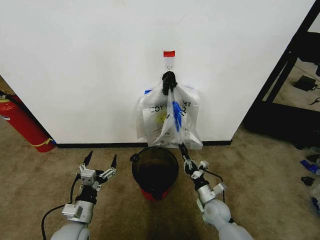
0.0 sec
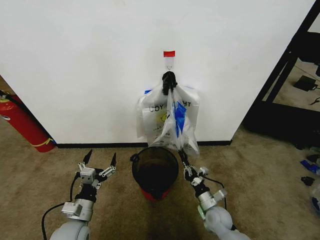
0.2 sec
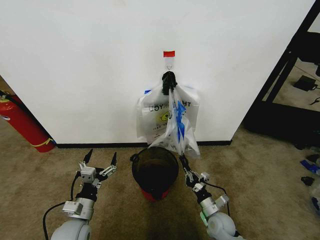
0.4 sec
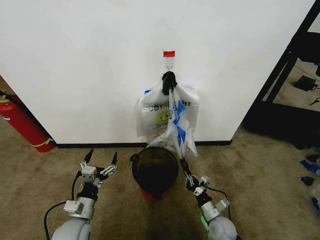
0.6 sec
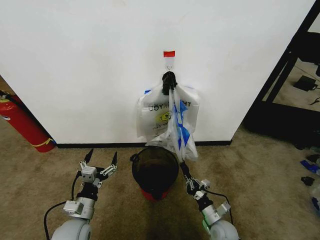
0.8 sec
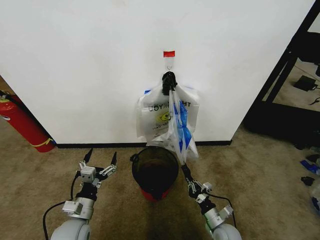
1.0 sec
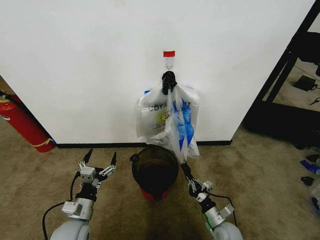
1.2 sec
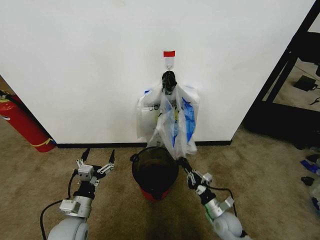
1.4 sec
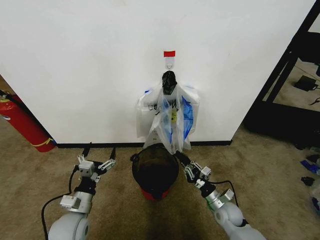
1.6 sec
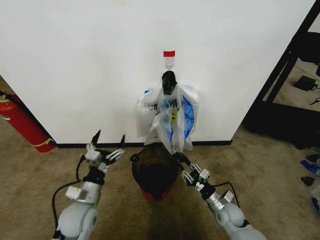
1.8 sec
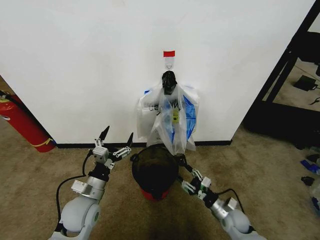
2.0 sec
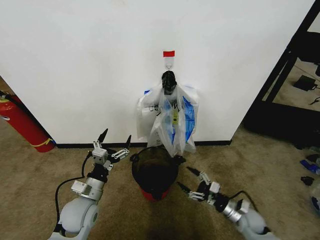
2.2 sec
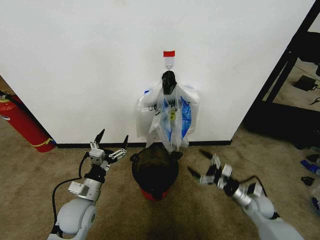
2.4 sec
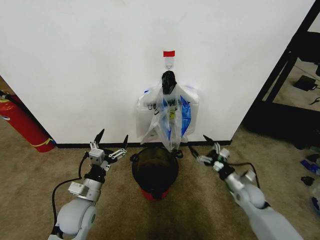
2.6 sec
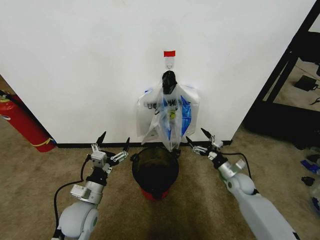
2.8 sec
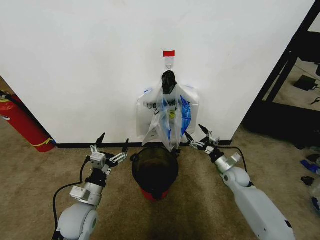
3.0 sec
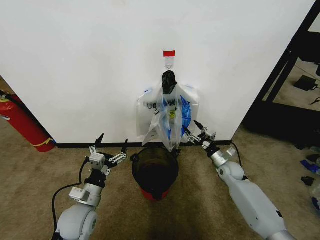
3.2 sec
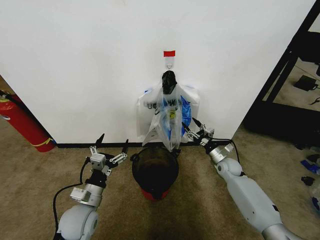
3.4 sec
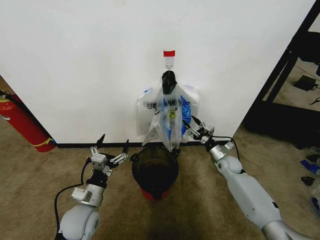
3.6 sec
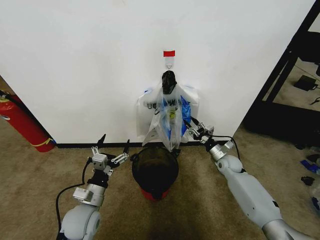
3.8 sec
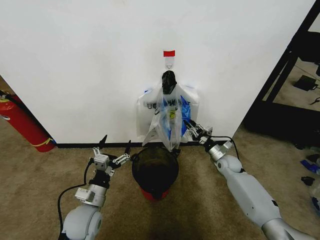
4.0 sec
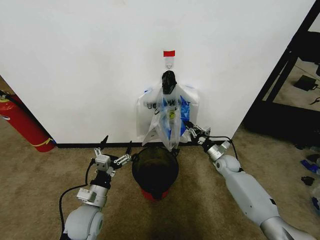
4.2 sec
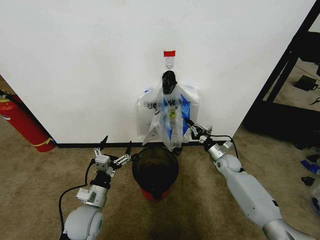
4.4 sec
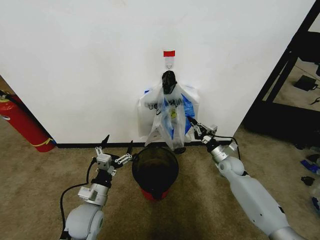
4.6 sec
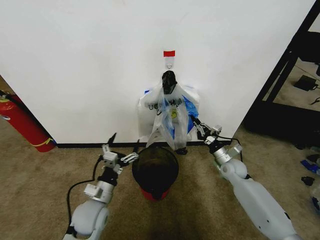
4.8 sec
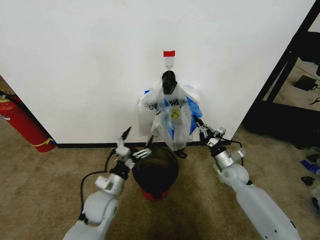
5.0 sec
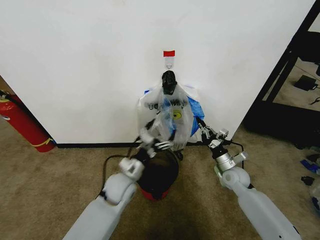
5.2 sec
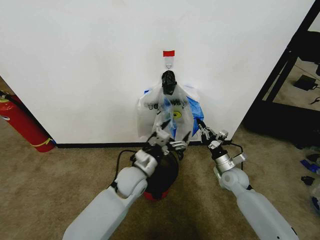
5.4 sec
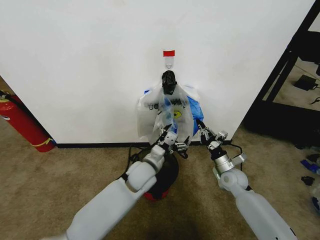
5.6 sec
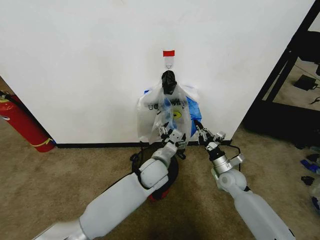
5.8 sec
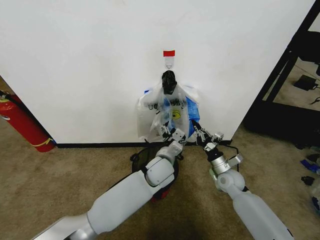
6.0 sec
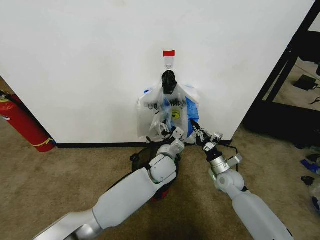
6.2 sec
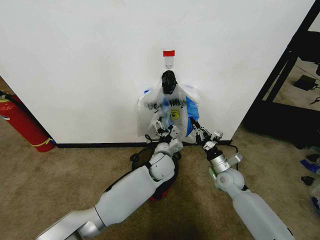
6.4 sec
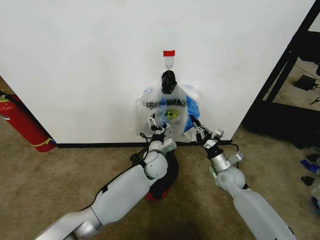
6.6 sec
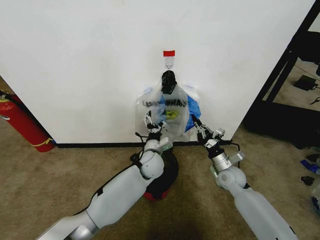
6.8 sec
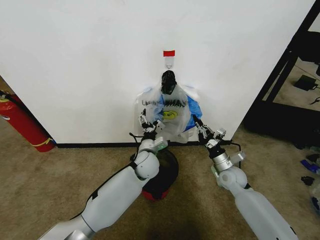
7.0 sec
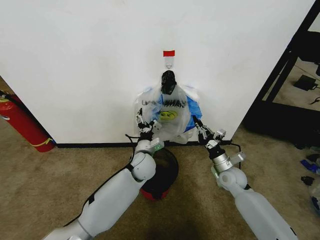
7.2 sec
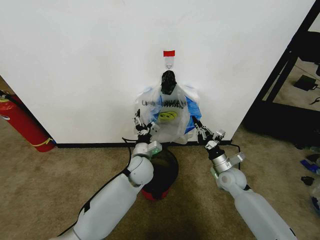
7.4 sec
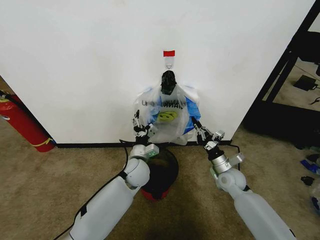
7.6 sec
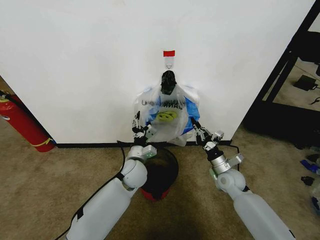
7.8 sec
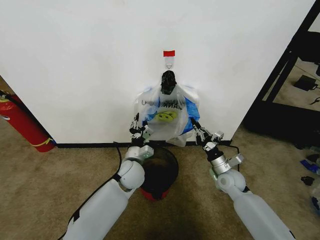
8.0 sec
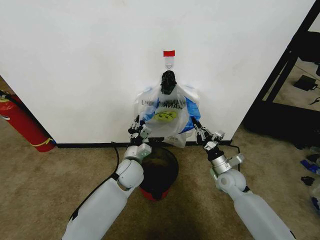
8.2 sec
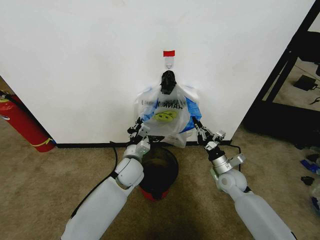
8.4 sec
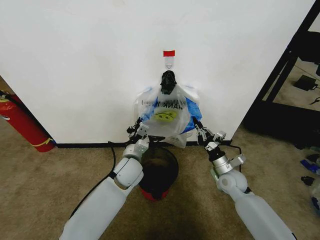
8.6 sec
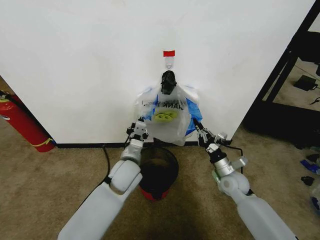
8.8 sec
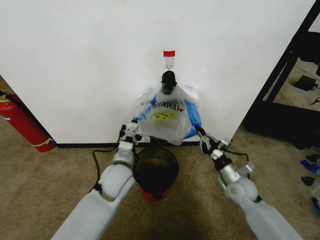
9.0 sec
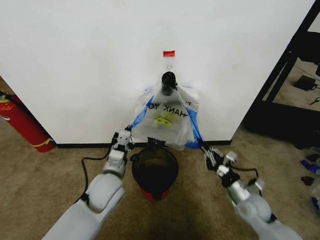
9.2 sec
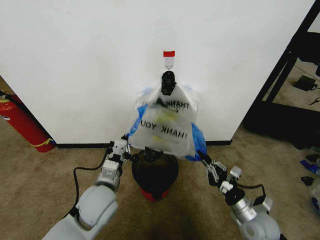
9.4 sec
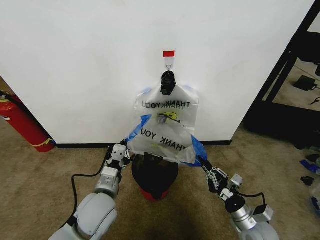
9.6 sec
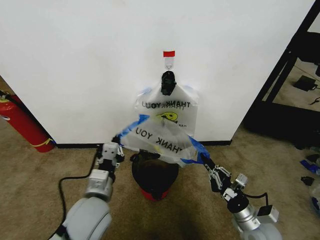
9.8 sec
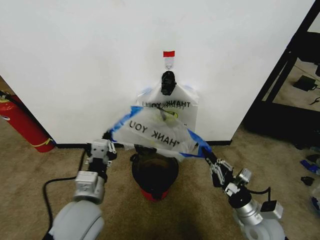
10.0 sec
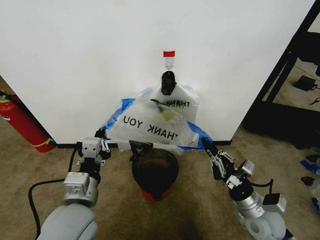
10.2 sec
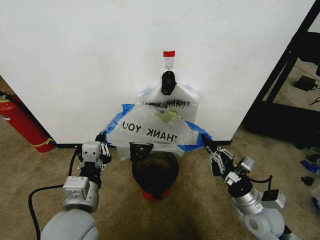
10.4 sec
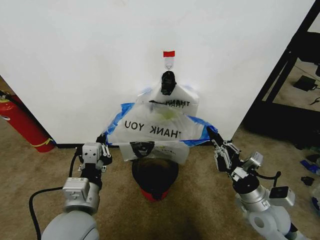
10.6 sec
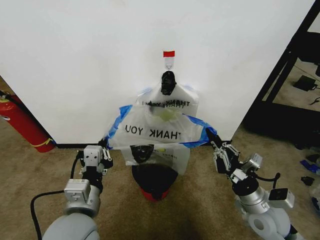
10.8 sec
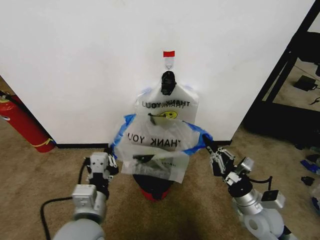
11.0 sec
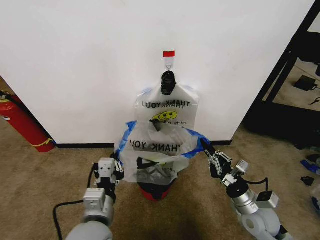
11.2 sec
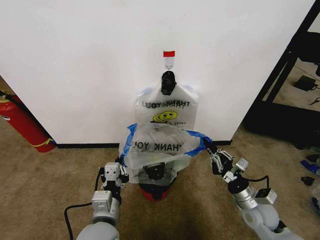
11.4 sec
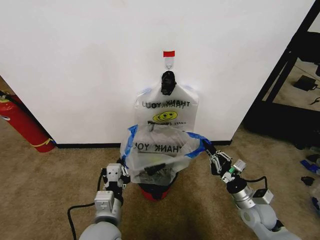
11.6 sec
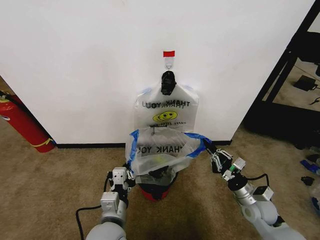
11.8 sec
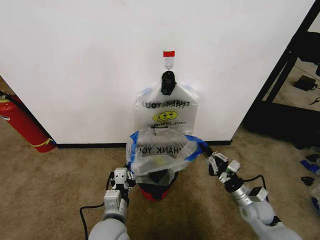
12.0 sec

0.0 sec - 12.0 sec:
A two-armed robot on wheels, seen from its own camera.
Task of the whole recording: Pick up the garbage bag from the wall and place it over the trash bin.
0.0 sec - 1.6 sec: The right gripper reaches about 10 cm backward, then returns.
1.6 sec - 3.0 sec: The right gripper heads forward, to the right and upward, covering some 15 cm, and opens.
3.0 sec - 4.4 sec: The right gripper goes some 5 cm forward, and closes.
4.4 sec - 6.0 sec: The right gripper is displaced backward by roughly 10 cm; the left gripper is displaced to the right and forward by approximately 25 cm.
6.0 sec - 7.6 sec: The left gripper shifts roughly 10 cm to the left.
7.6 sec - 9.0 sec: The right gripper goes some 5 cm backward; the left gripper moves backward, upward and to the left, about 10 cm, and closes up.
9.0 sec - 10.4 sec: Both grippers travel together backward and upward, about 15 cm.
10.4 sec - 12.0 sec: Both grippers move downward, approximately 10 cm.

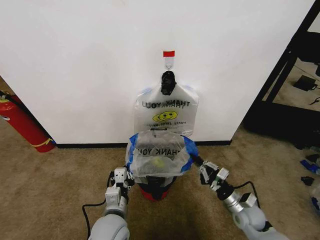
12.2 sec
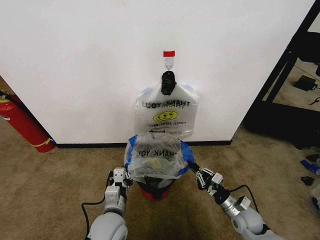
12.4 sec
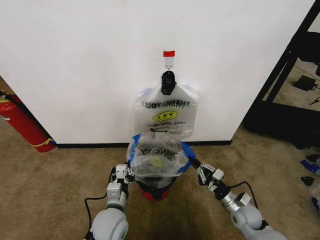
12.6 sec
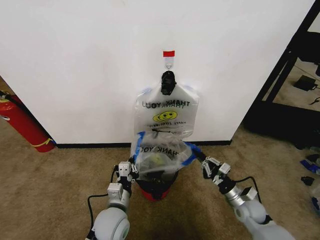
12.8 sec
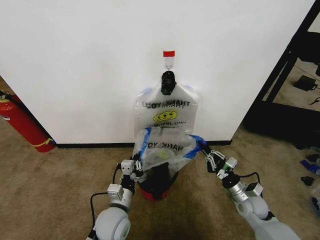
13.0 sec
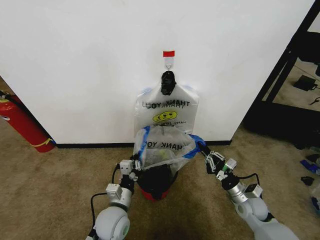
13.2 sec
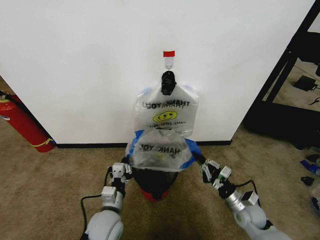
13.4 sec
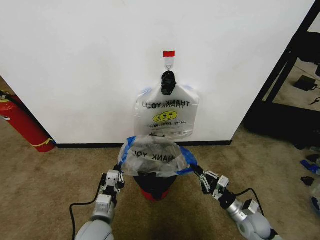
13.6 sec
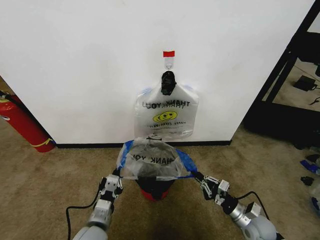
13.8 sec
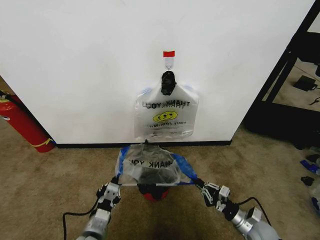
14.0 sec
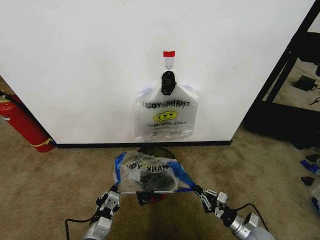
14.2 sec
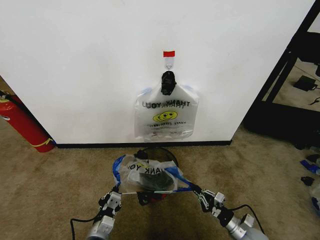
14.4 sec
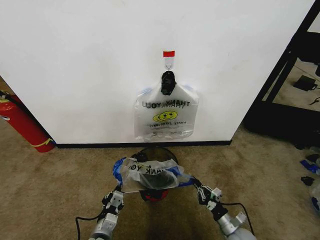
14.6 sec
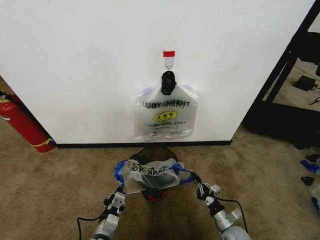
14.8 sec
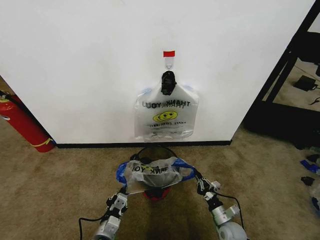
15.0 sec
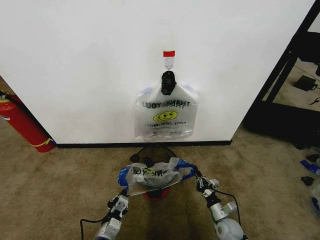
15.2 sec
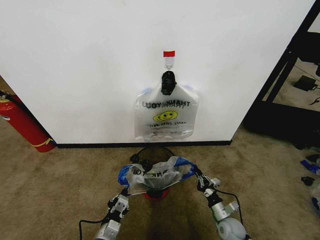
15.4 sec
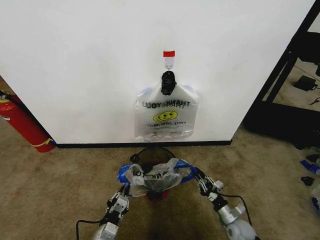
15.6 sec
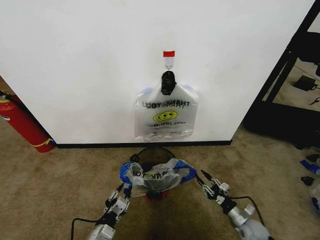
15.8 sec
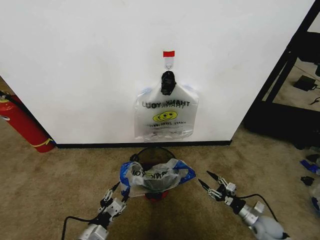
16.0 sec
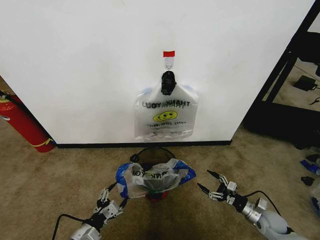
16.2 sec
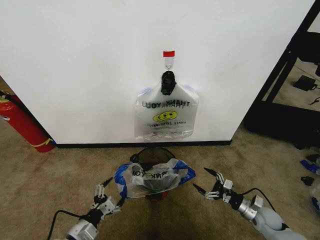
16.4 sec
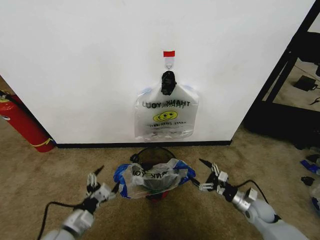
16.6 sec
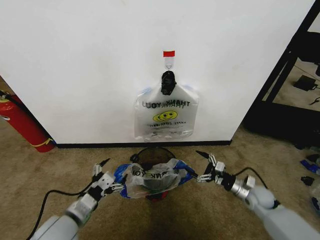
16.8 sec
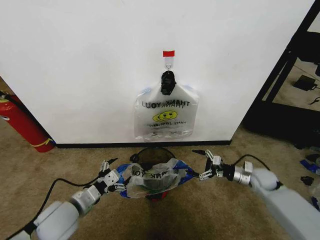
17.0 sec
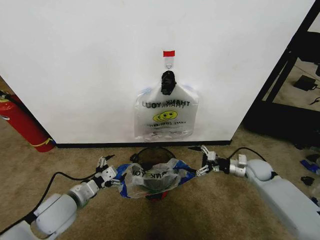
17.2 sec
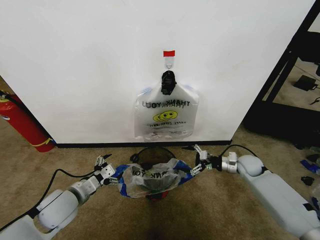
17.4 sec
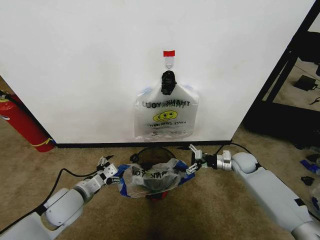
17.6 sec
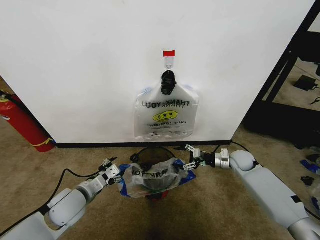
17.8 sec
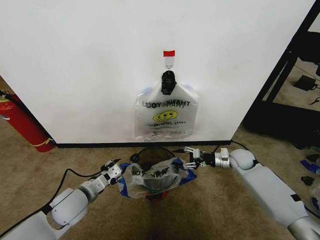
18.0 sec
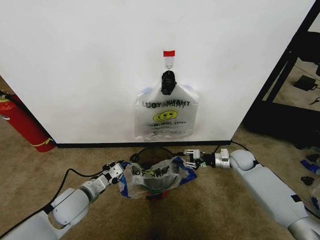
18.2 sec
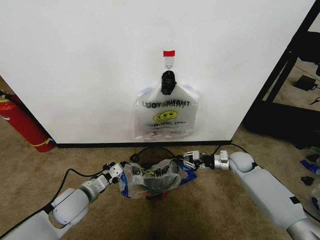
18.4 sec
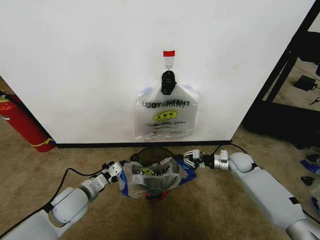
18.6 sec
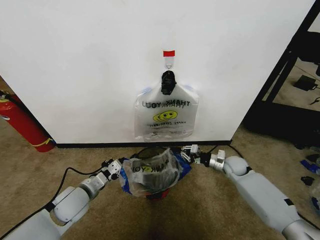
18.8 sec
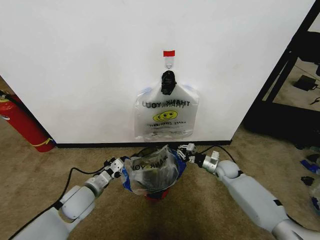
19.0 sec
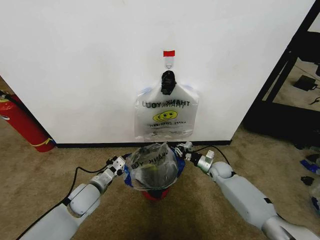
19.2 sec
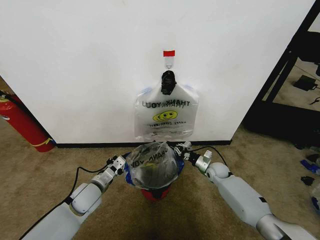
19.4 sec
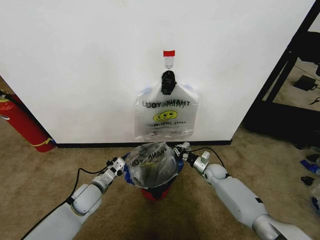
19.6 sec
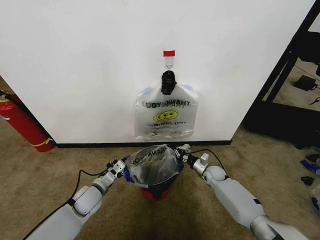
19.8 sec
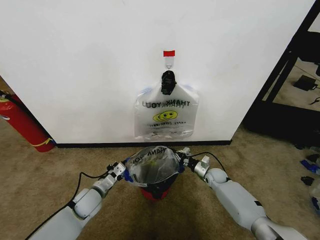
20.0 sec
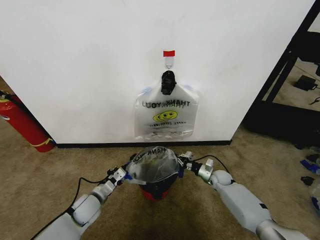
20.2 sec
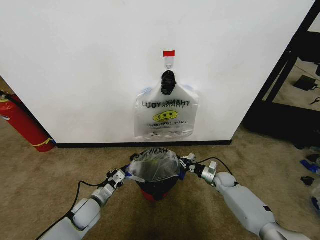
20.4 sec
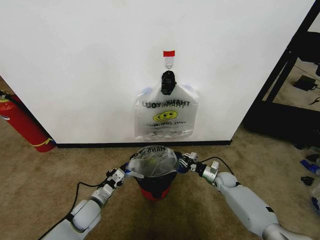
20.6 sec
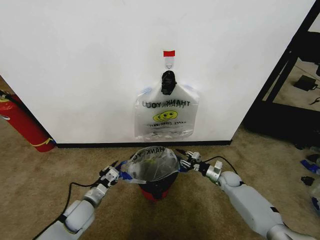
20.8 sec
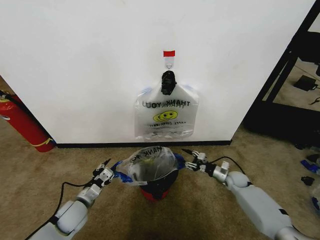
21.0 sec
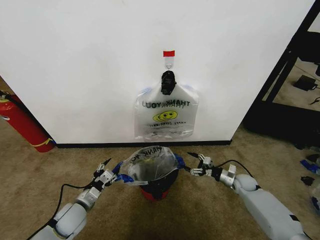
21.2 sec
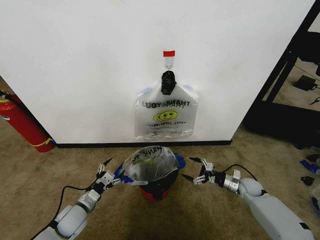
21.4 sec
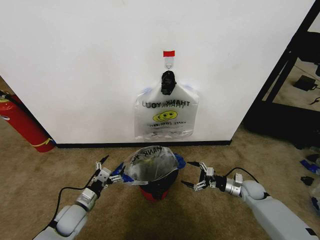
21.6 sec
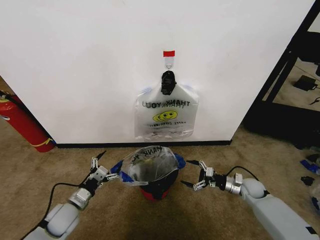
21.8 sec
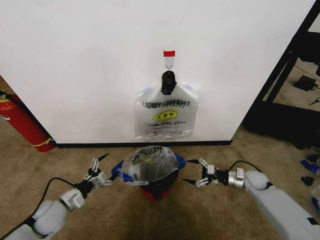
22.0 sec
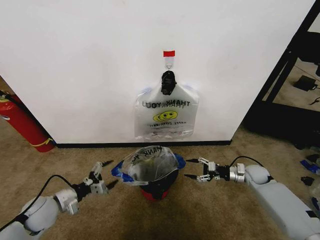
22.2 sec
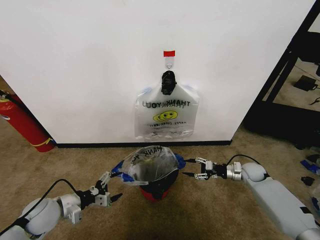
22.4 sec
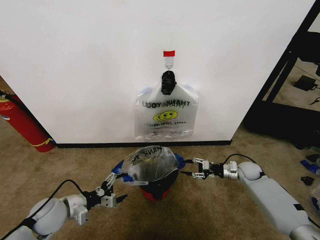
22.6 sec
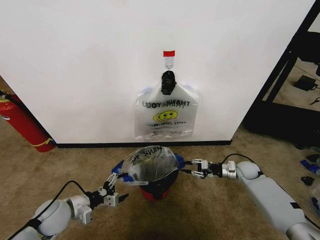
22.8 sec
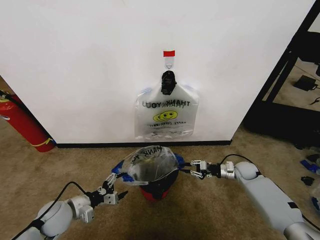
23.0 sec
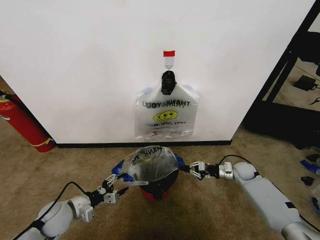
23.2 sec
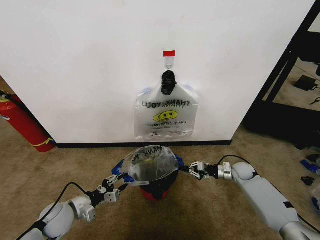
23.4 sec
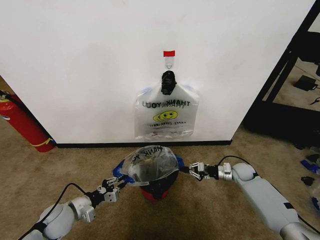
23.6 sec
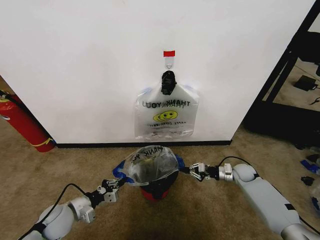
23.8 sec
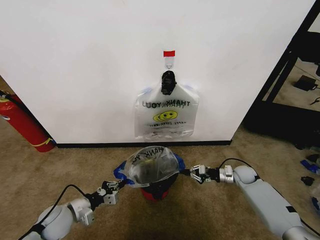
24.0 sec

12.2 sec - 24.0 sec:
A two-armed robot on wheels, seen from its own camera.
Task of the whole recording: Pick up the garbage bag from the wall and place it over the trash bin.
12.2 sec - 13.6 sec: The left gripper shifts by some 5 cm.
13.6 sec - 15.2 sec: The grippers both shift downward by approximately 10 cm.
15.2 sec - 16.6 sec: The right gripper goes approximately 15 cm upward and to the right, and opens; the left gripper travels upward and to the left by roughly 15 cm, and opens up.
16.6 sec - 18.2 sec: The right gripper goes approximately 20 cm forward and upward, and closes. Meanwhile the left gripper shifts some 10 cm forward, and closes up.
18.2 sec - 19.6 sec: The right gripper shifts some 15 cm downward and to the left, and closes its fingers. The left gripper is displaced downward by some 5 cm.
19.6 sec - 21.0 sec: The right gripper moves to the right, about 10 cm, and opens up. Meanwhile the left gripper travels backward by approximately 5 cm, and opens.
21.0 sec - 22.6 sec: Both grippers travel together upward, some 5 cm. The right gripper opens, then closes again. Meanwhile the left gripper opens.
22.6 sec - 24.0 sec: The left gripper closes up. Meanwhile the right gripper closes up.
